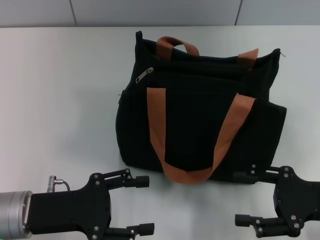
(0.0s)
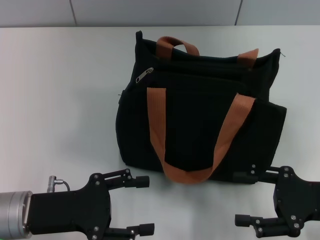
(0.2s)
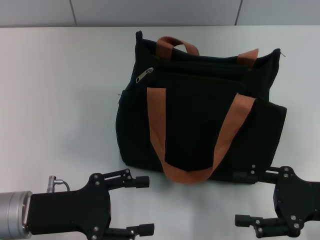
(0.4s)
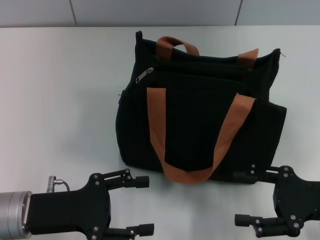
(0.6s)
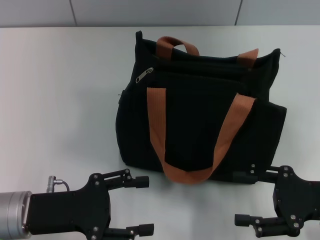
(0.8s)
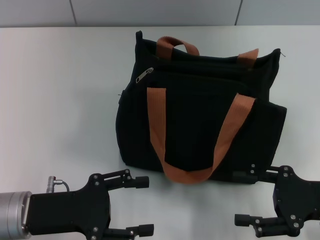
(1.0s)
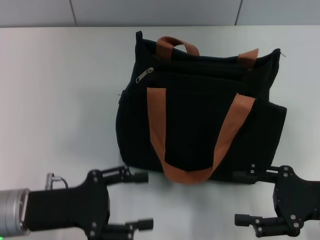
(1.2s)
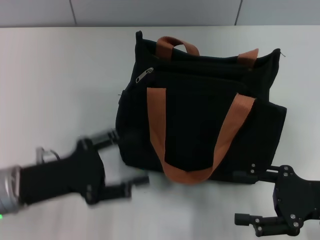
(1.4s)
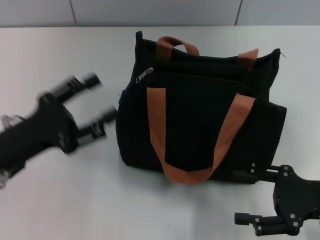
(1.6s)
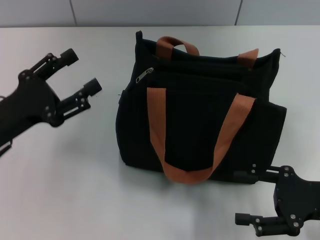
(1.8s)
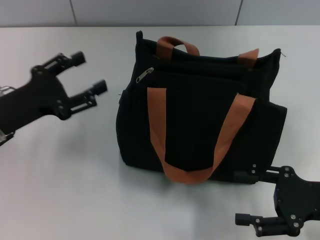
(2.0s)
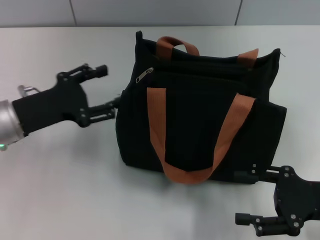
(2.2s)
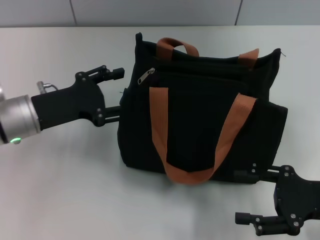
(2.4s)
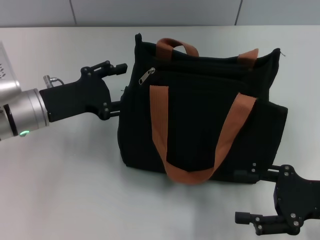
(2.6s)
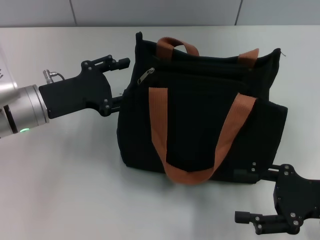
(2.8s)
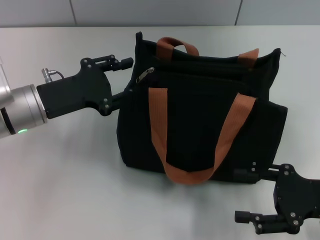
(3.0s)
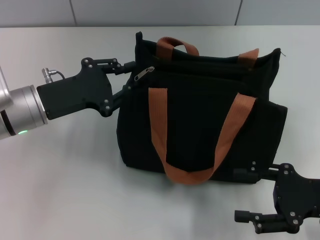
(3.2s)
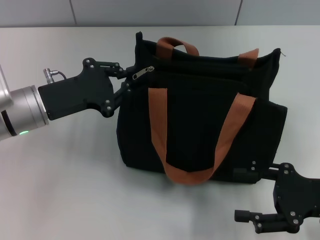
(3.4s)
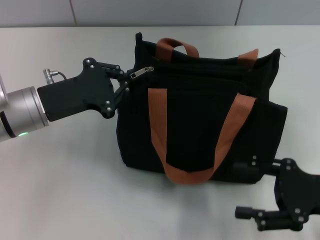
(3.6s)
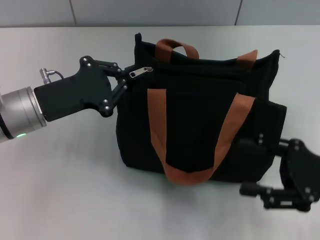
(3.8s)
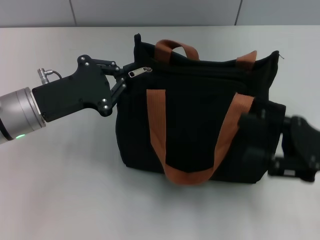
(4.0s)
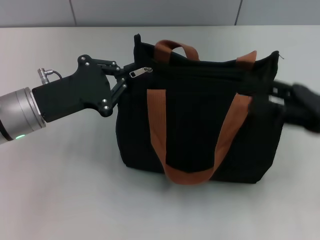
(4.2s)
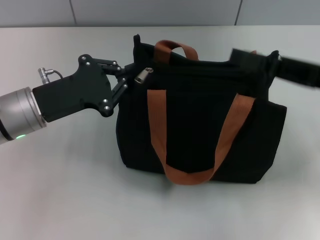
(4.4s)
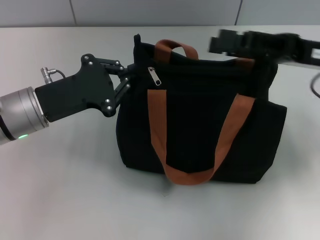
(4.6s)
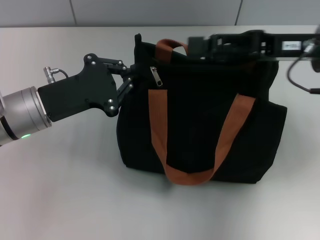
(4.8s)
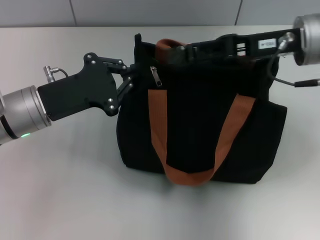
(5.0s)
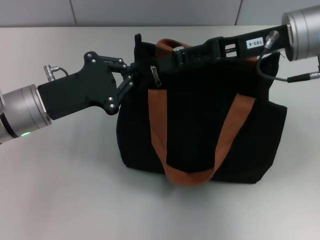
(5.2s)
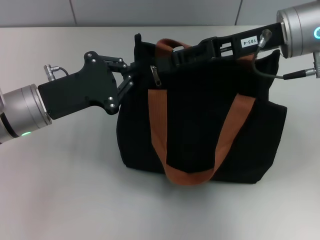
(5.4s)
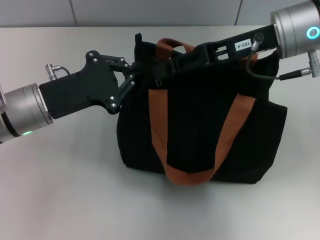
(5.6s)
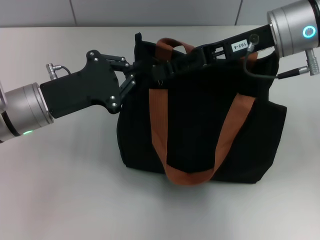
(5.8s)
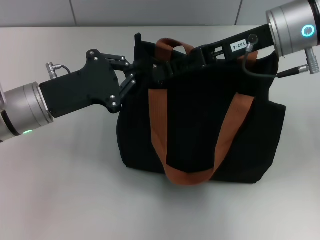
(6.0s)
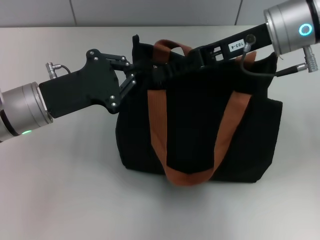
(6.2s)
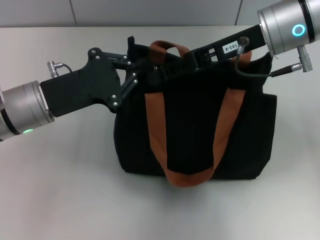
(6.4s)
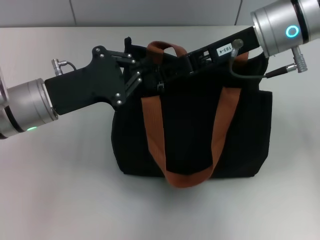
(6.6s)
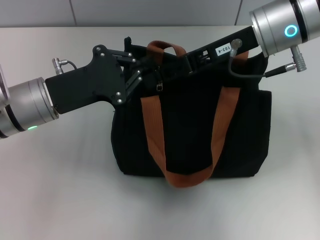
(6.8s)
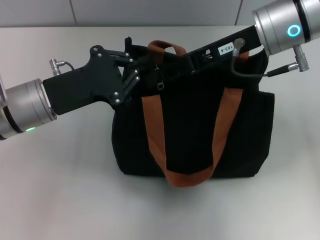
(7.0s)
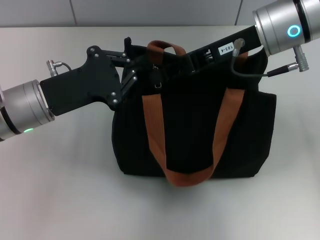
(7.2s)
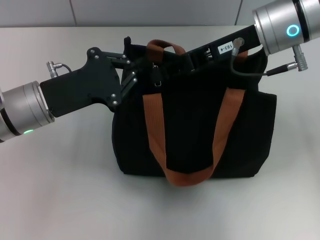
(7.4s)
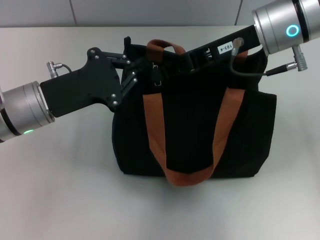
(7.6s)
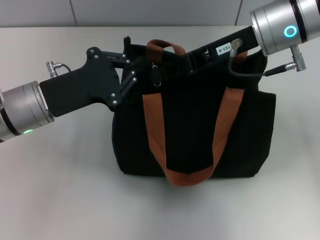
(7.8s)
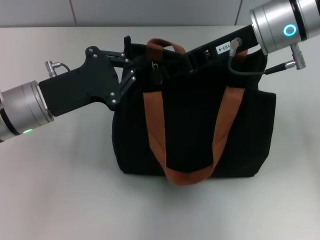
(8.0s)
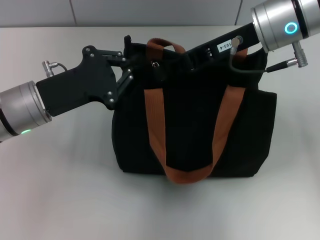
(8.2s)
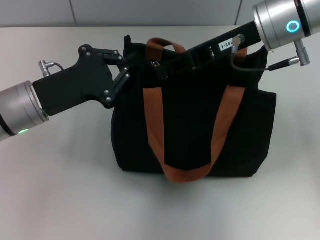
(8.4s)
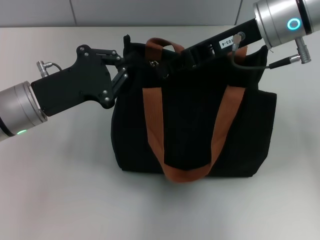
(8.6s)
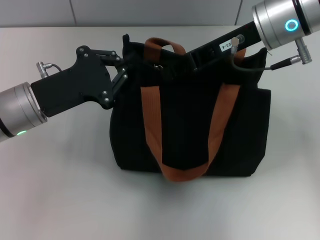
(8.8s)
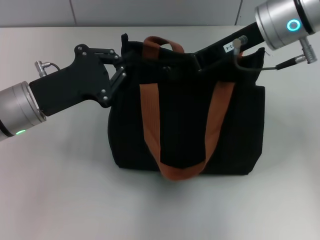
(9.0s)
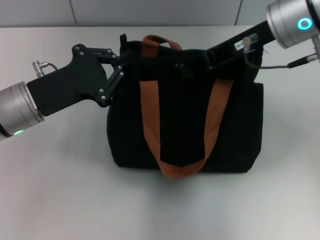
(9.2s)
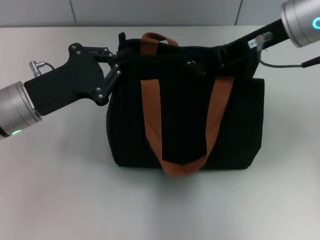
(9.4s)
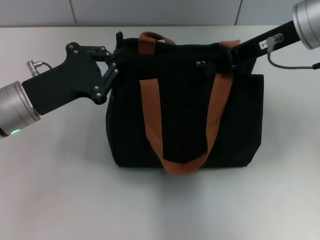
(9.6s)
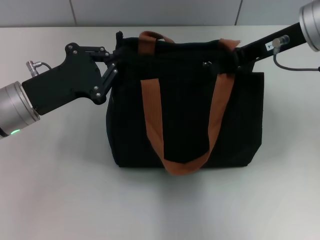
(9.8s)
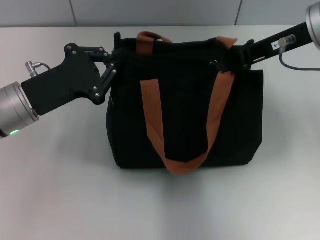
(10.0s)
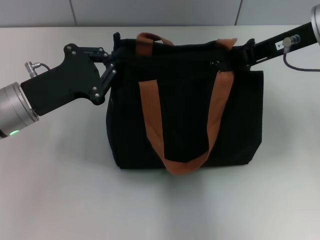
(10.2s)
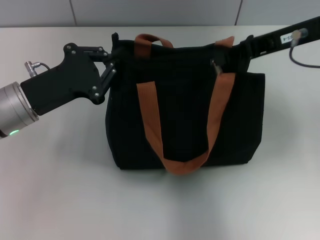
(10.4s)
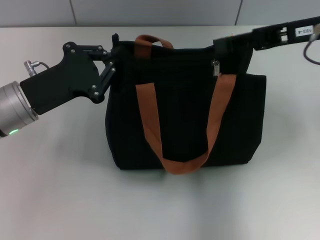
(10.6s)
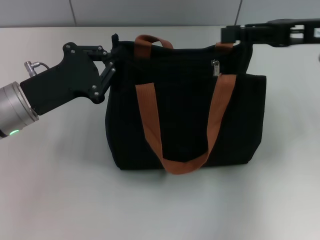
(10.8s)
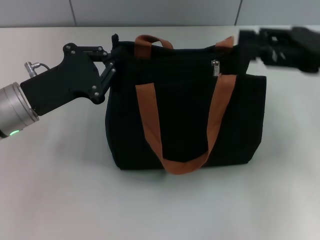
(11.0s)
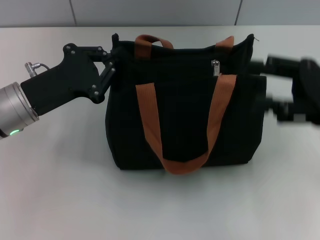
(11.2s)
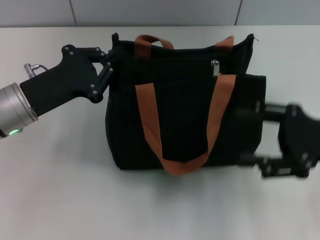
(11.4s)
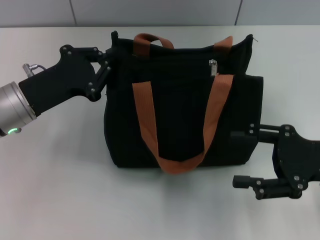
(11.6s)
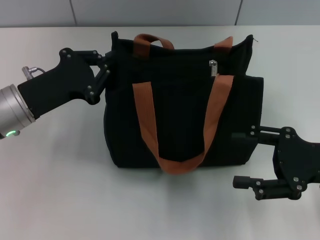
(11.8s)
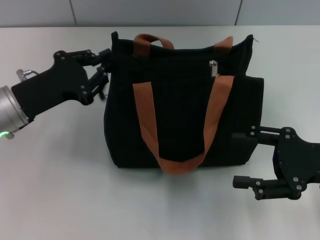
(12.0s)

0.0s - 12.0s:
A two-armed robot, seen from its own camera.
Step, 0.0s - 10.4s: Pull up the zipper with your right hand.
1.6s - 3.0s: The left gripper moves forward, some 10 cm.
3.0s - 4.4s: The left gripper closes its fingers. The right gripper moves forward and upward, about 10 cm.
4.4s - 6.0s: The right gripper goes about 15 cm to the left, forward and upward, and closes.
6.0s - 7.6s: The right gripper closes.
7.6s - 9.0s: The grippers stay close to where they were, moving slightly.
9.0s - 10.4s: The right gripper heads to the right, covering approximately 5 cm.
10.4s - 12.0s: The right gripper is displaced downward, backward and to the right by roughly 20 cm, and opens.

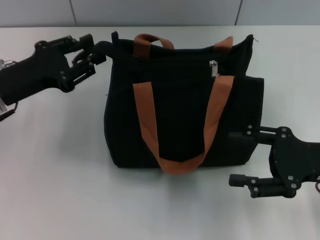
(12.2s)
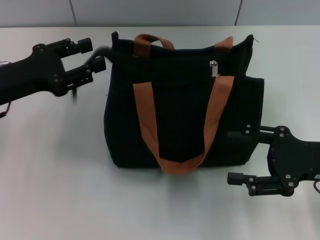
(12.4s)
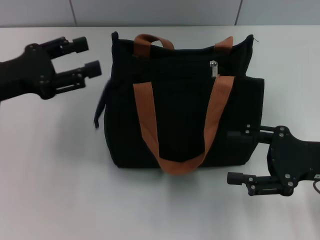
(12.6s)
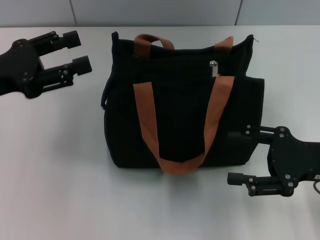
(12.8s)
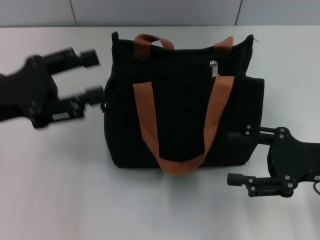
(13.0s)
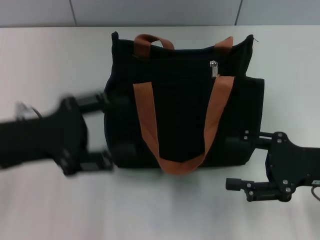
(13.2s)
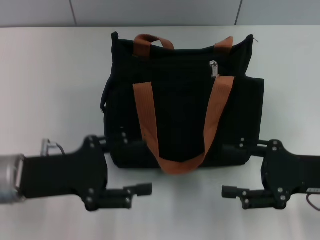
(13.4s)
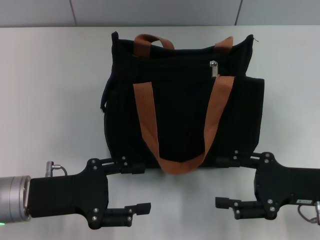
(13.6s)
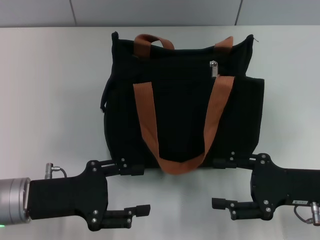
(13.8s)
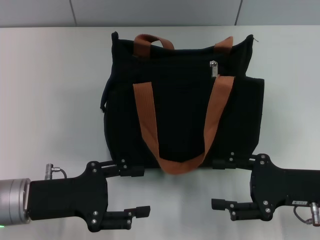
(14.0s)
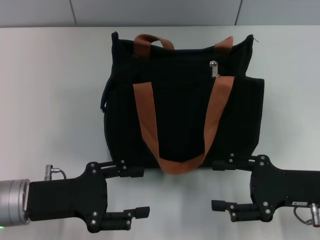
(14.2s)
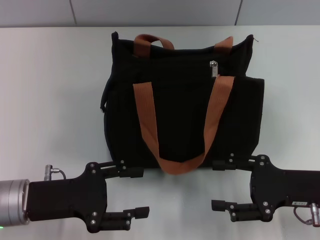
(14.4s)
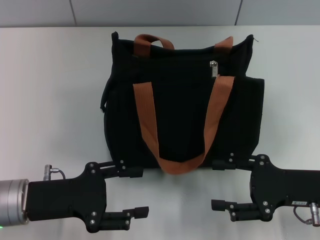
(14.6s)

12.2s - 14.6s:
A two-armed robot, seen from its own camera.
12.2s - 13.4s: The left gripper heads backward, covering some 5 cm, and opens up.
13.4s - 14.6s: The left gripper shifts by about 5 cm.

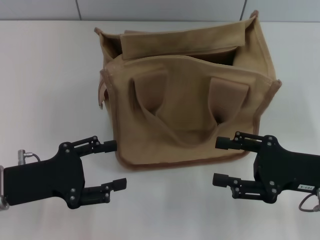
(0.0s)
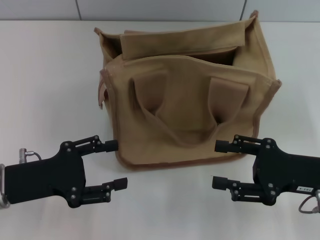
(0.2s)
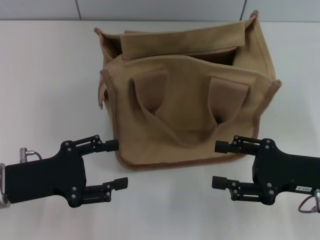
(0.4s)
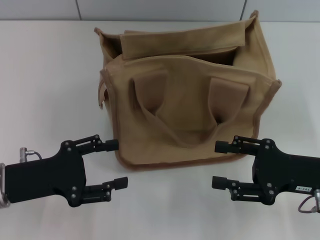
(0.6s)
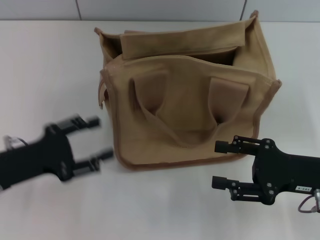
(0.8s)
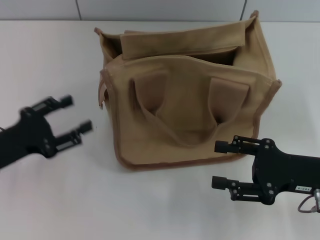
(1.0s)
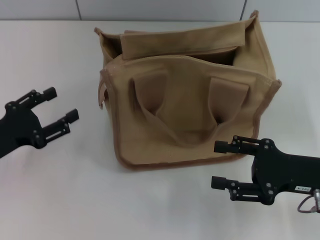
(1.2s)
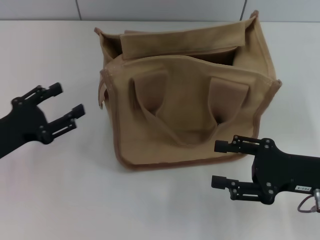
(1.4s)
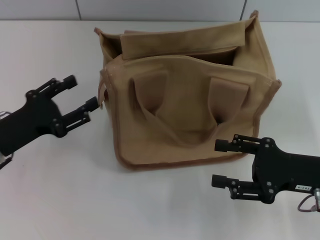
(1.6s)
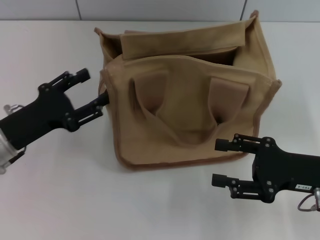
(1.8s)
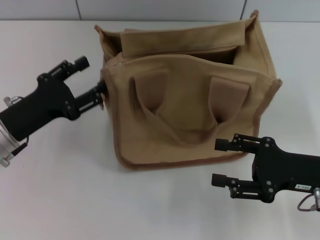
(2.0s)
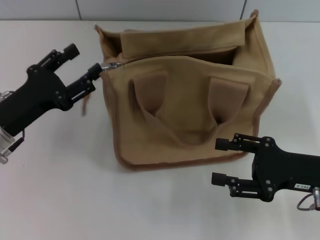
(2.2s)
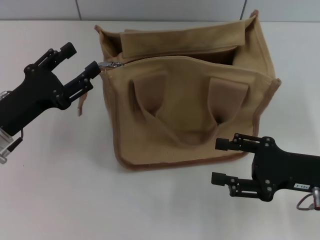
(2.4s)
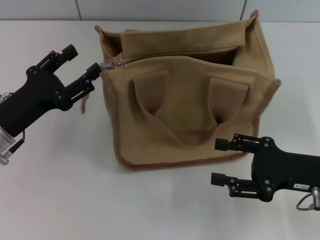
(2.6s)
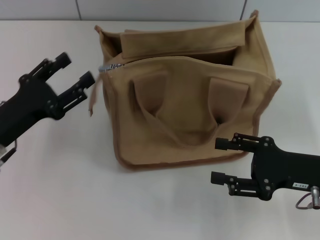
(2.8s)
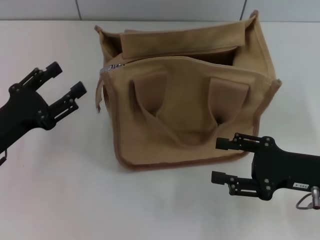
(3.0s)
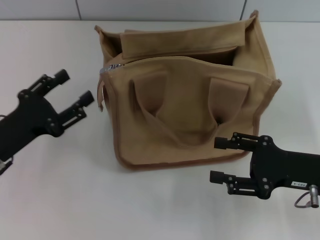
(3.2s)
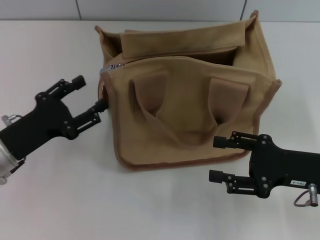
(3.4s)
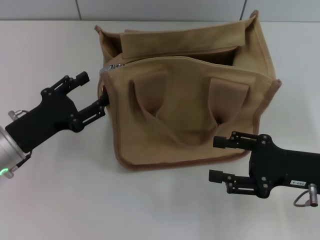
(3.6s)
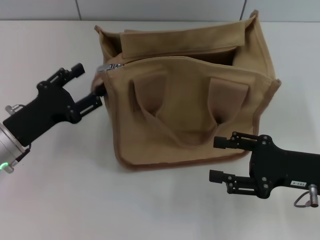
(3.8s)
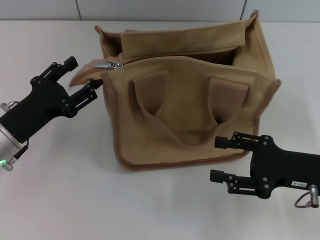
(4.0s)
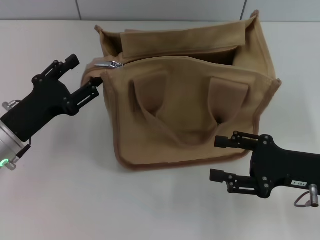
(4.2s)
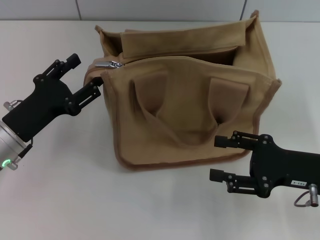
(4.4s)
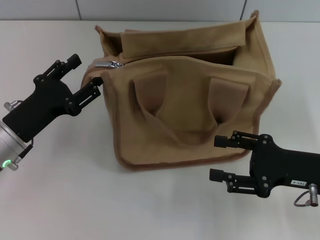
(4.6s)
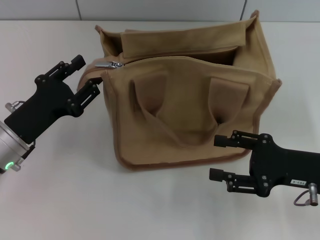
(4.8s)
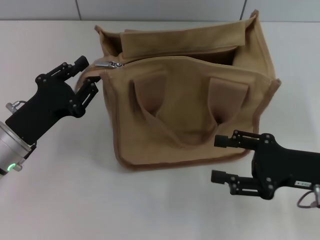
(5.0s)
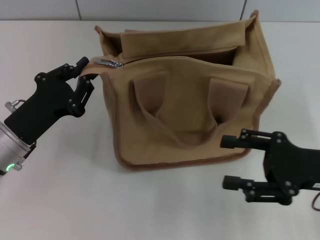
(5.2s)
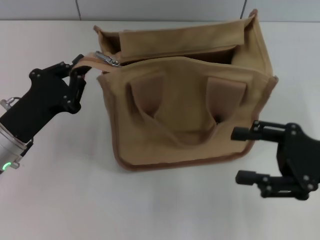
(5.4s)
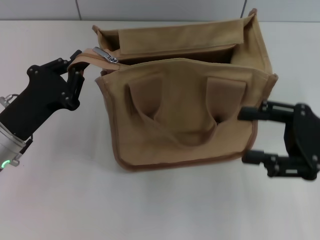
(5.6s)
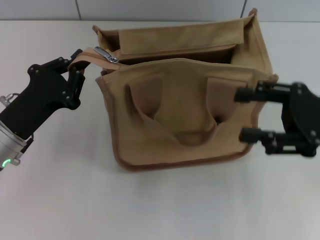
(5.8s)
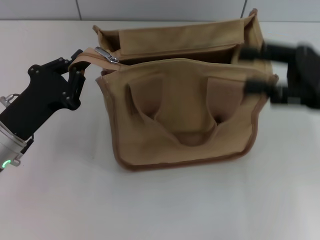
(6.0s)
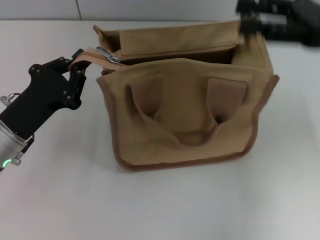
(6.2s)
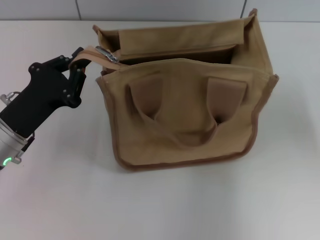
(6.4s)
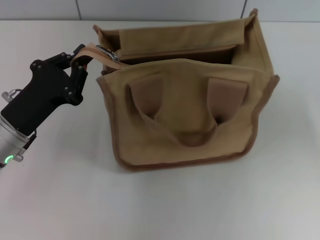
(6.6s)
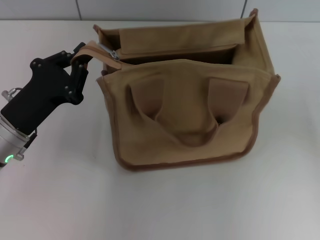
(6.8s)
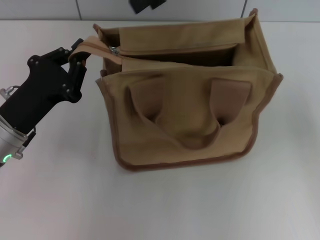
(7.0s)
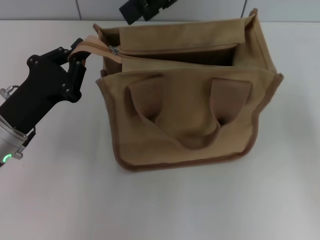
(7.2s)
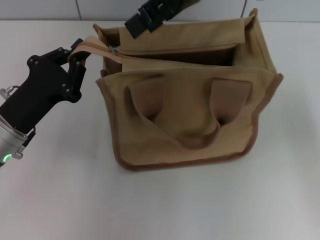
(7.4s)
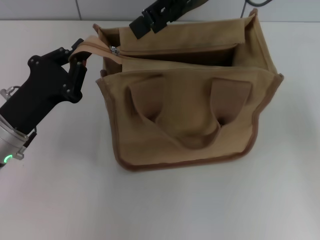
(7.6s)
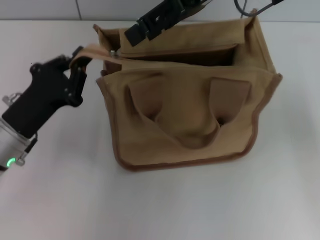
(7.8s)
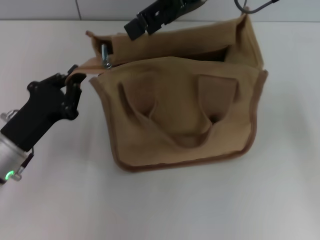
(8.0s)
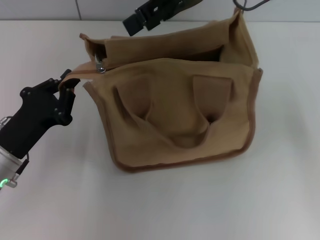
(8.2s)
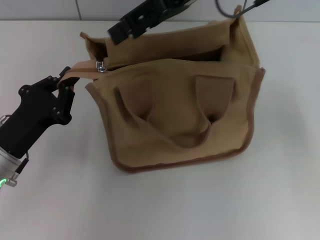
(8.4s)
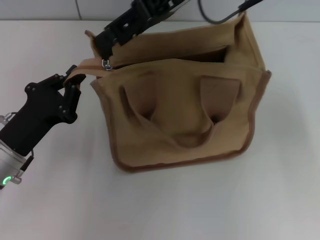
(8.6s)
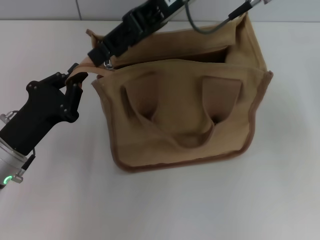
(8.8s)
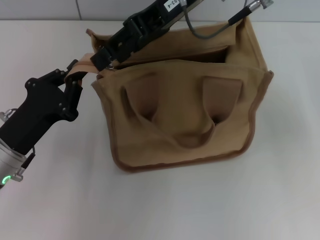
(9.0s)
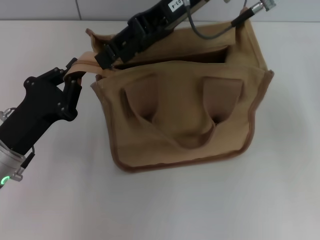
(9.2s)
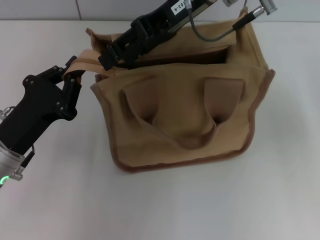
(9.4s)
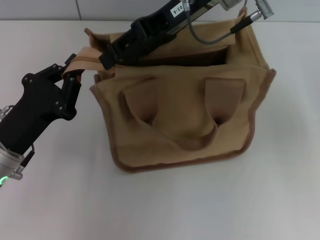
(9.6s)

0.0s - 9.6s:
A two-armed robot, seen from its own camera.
1.6s - 4.8s: There are only small adjustments of the grippers.
4.8s - 6.4s: The left gripper closes its fingers; the right gripper goes about 25 cm upward and forward.
6.4s - 8.0s: The right gripper travels to the left by about 10 cm.
8.0s - 9.6s: The right gripper changes place by some 5 cm.
